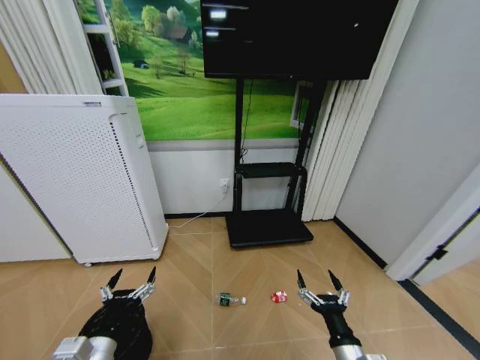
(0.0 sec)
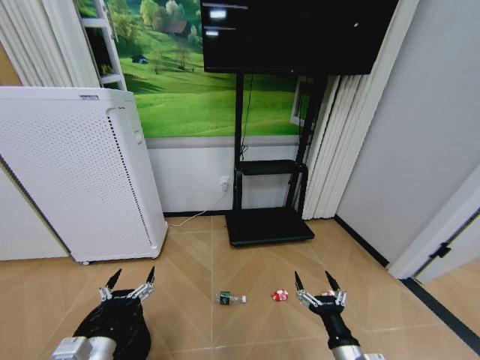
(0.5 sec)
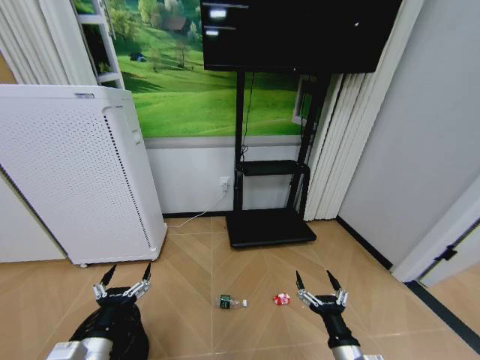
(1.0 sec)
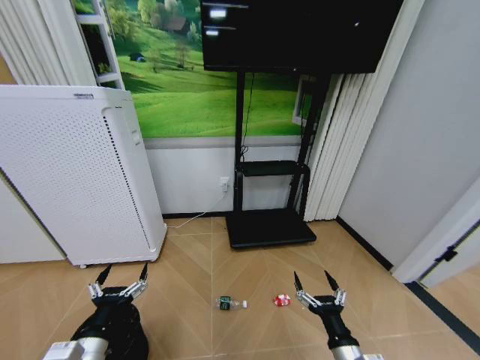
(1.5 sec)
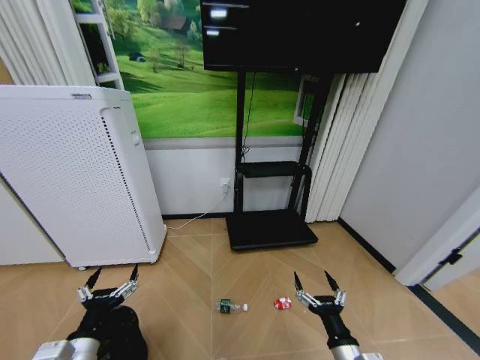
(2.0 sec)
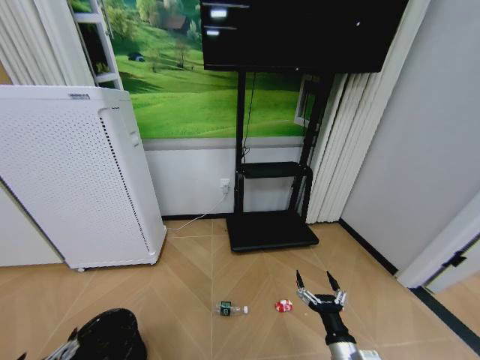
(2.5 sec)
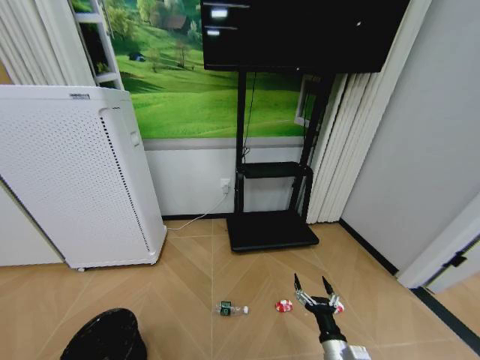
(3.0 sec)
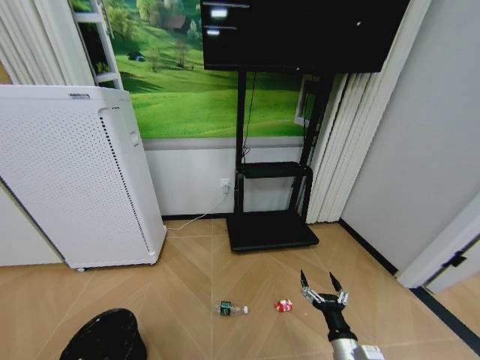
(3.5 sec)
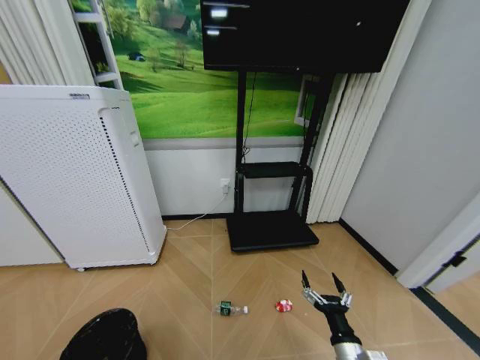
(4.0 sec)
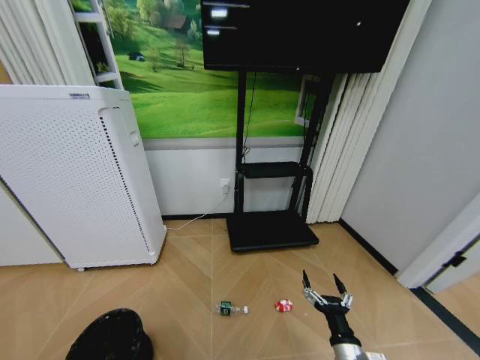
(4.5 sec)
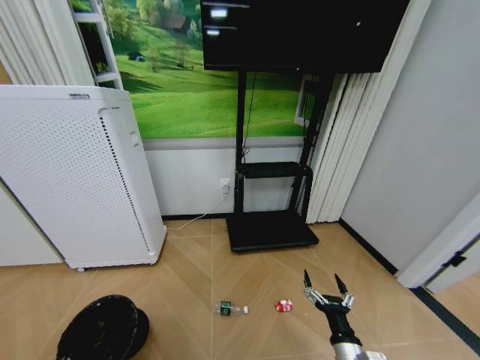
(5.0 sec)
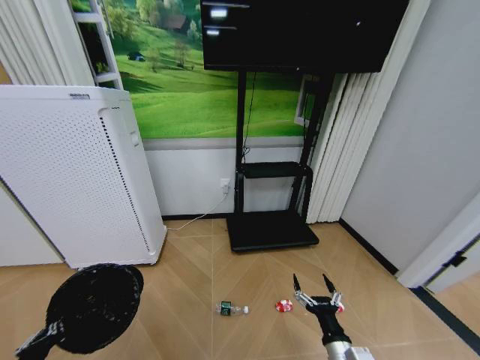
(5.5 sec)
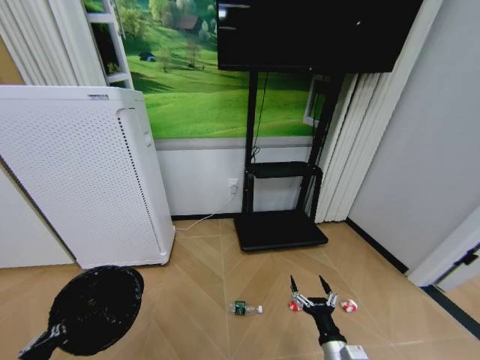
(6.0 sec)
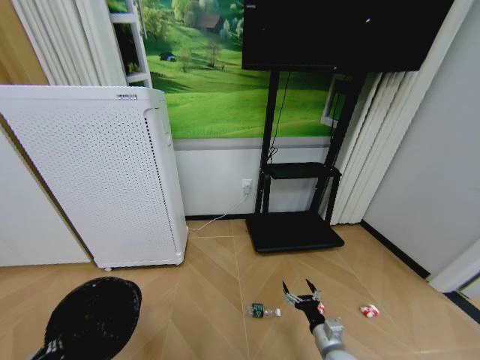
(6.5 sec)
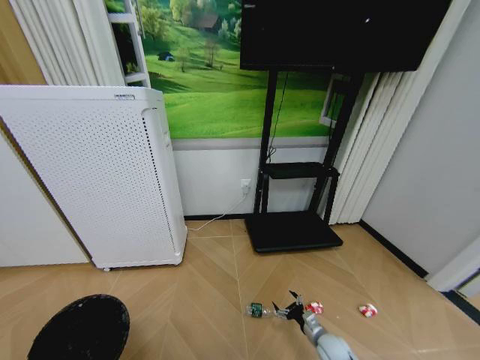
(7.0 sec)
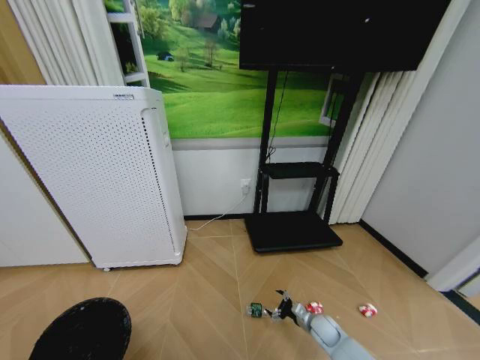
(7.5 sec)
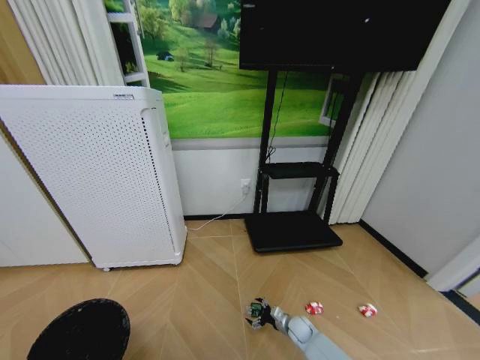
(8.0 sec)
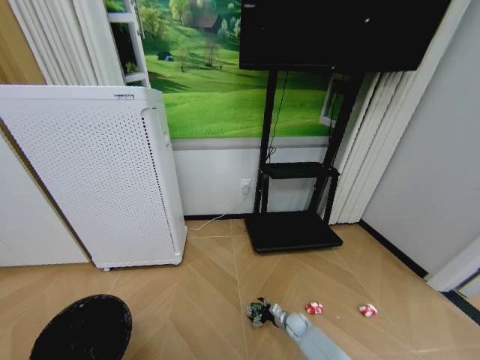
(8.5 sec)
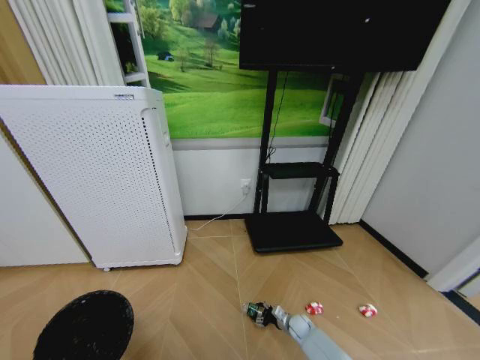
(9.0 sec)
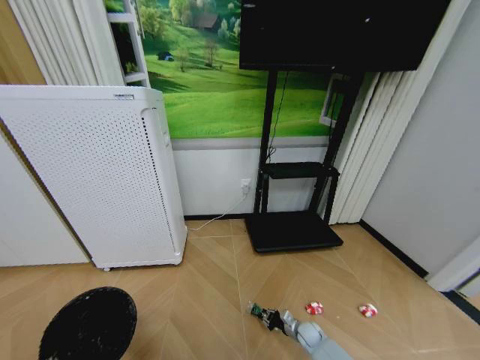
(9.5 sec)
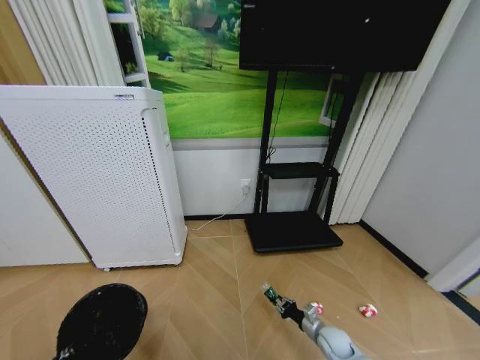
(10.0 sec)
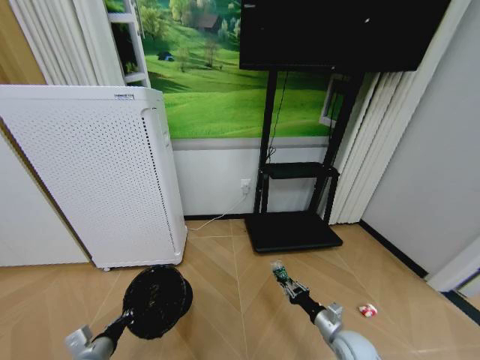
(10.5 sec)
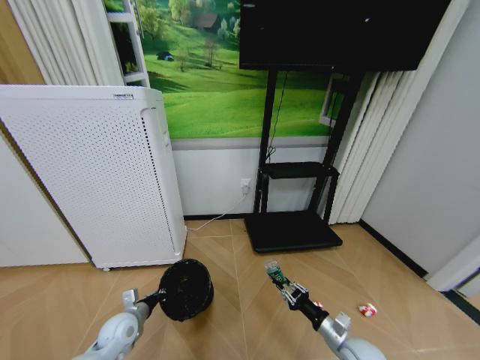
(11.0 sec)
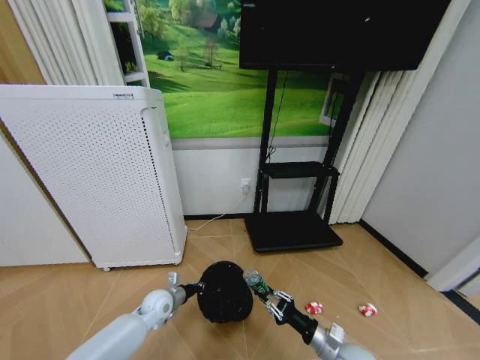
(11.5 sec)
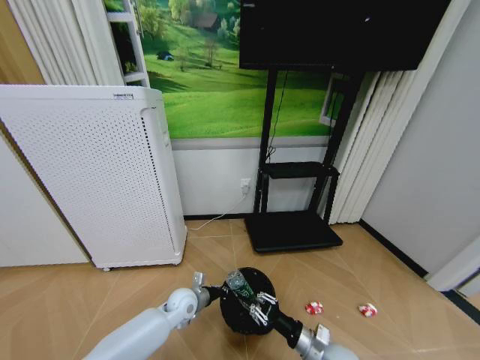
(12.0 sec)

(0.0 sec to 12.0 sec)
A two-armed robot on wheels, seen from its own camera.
Task of the whole recording: Pick up the trash bin and place the garbage on the floor into it.
0.0 sec - 2.0 sec: The grippers move only a little.
2.0 sec - 4.0 sec: The left gripper shifts roughly 20 cm to the left and downward.
4.0 sec - 6.0 sec: The left gripper shifts approximately 10 cm upward and to the right, and closes its fingers.
6.0 sec - 8.0 sec: The left gripper shifts some 5 cm backward, while the right gripper shifts some 30 cm downward and forward.
8.0 sec - 10.0 sec: The right gripper moves to the right, upward and backward, some 10 cm, and closes its fingers.
10.0 sec - 12.0 sec: The right gripper goes approximately 20 cm upward, to the left and backward. The left gripper is displaced forward and to the right by roughly 35 cm.

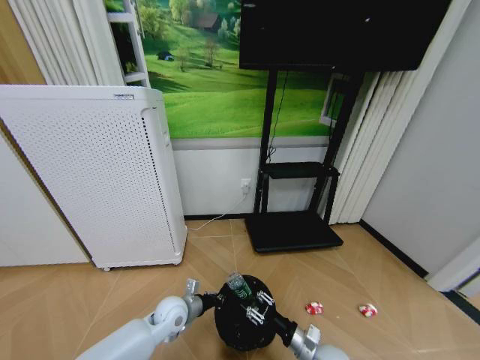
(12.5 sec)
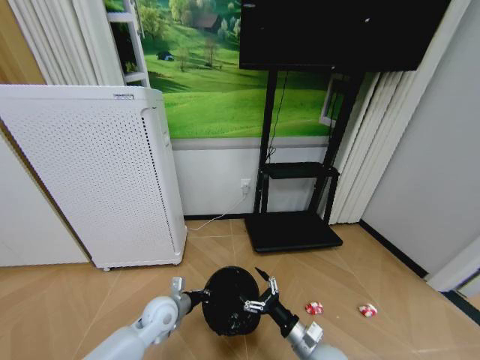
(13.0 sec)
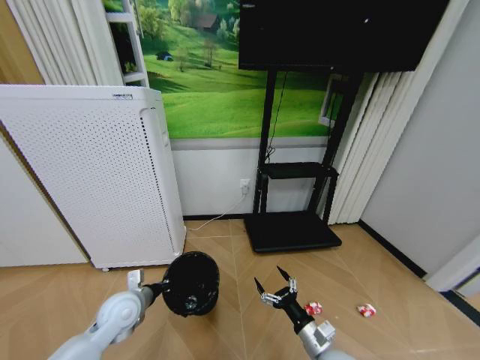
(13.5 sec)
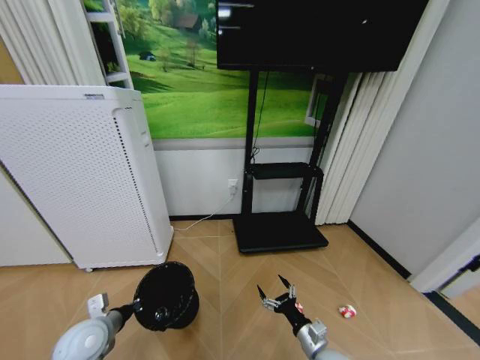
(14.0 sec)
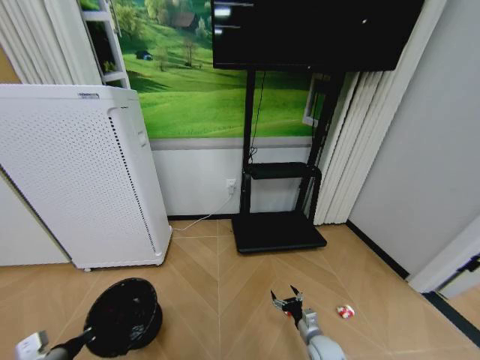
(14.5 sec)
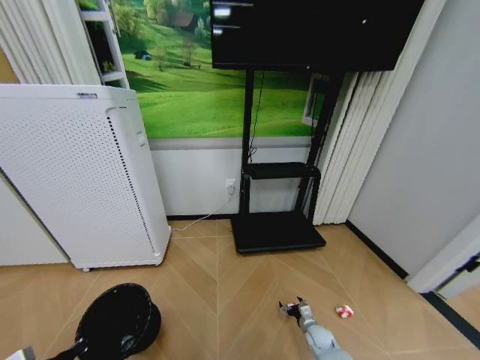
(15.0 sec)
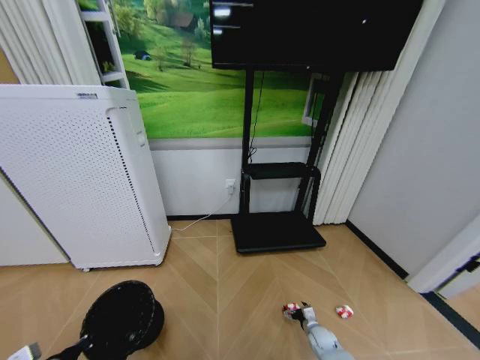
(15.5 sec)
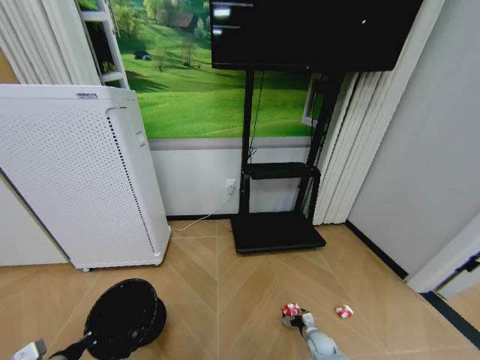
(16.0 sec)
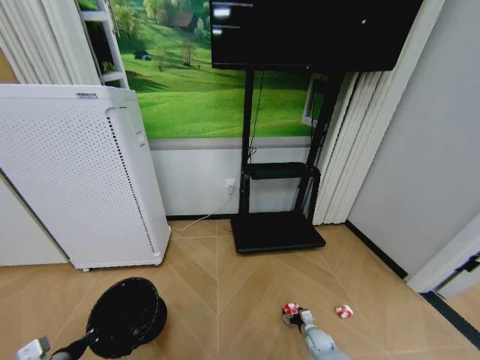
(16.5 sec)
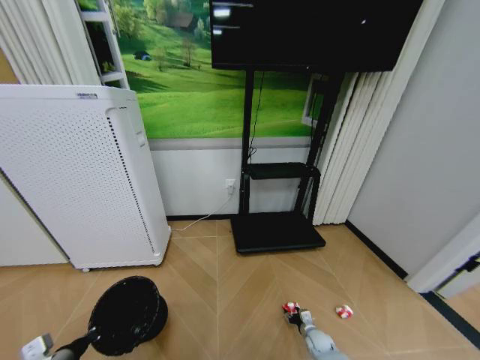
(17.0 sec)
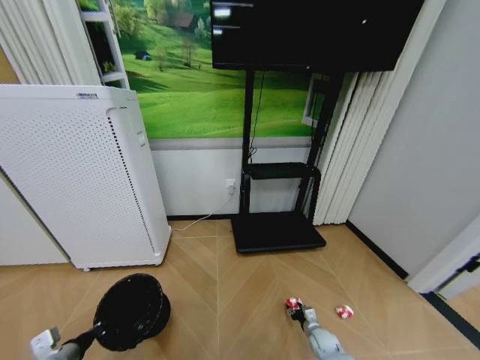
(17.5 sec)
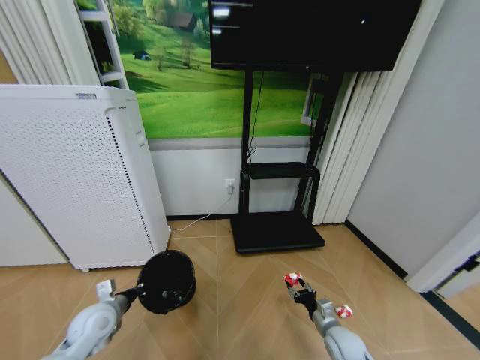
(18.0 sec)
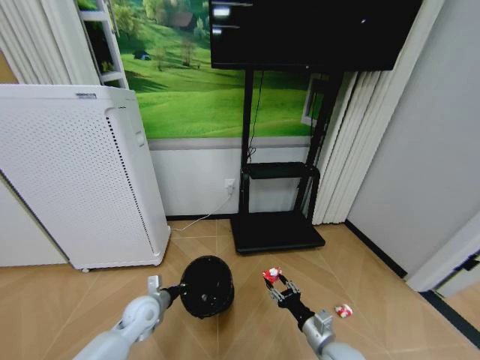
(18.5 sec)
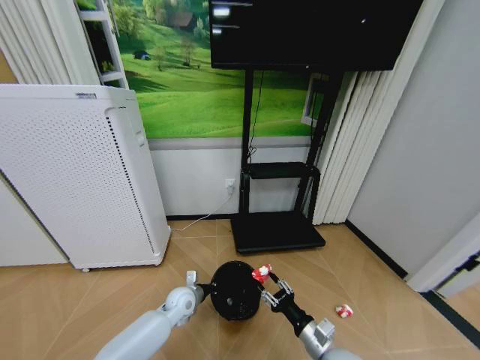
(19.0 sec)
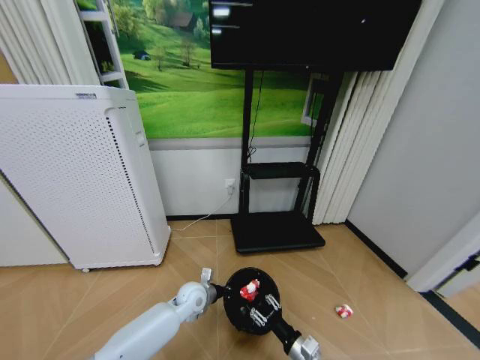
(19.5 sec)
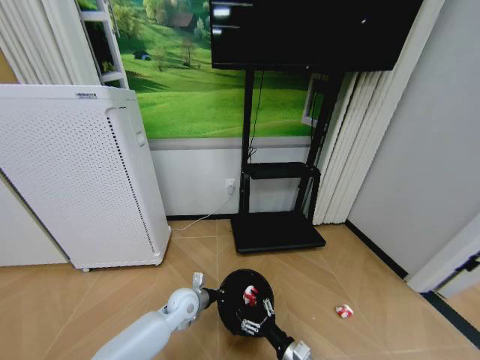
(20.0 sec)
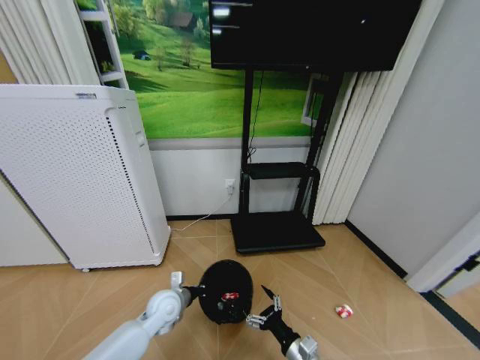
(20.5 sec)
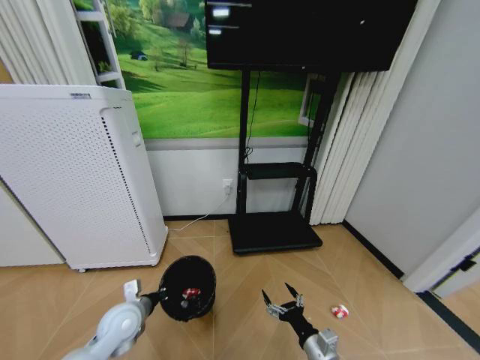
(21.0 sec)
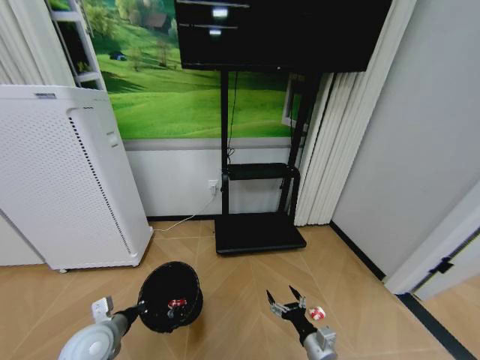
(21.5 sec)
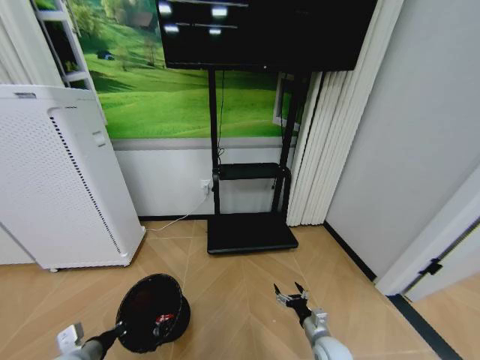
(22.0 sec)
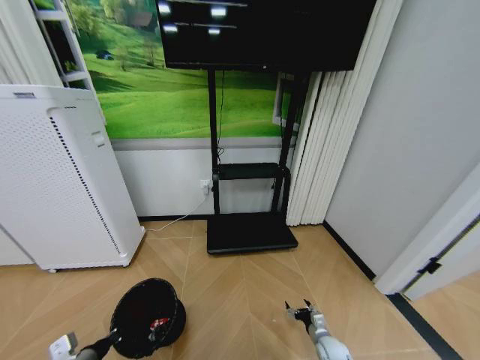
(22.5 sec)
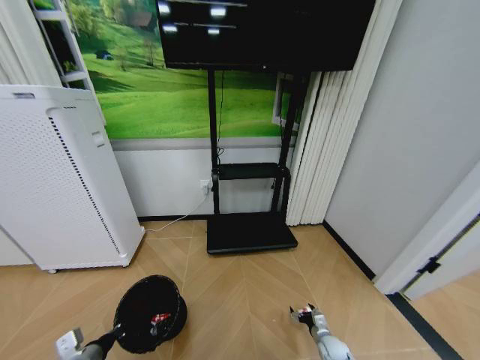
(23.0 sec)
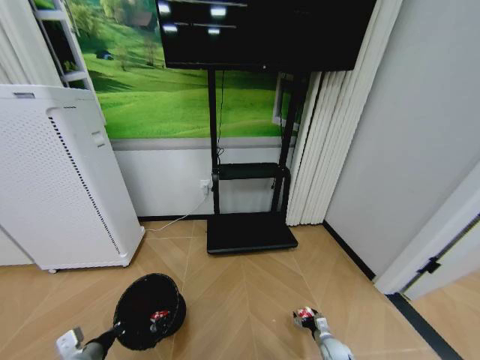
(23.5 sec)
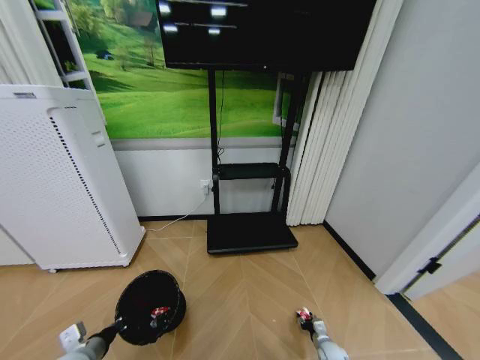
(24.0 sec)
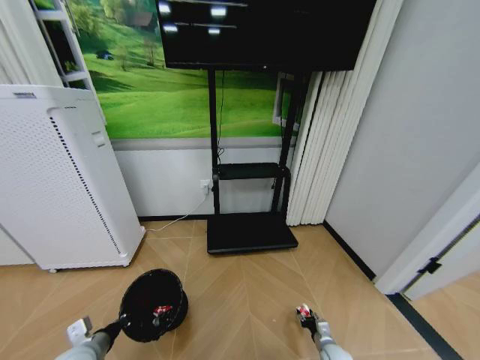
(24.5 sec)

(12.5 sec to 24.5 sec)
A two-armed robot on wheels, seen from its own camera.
Task of the whole recording: Pick up the trash bin and place the garbage on the floor into it.
12.5 sec - 14.5 sec: The left gripper goes roughly 25 cm to the left and backward. Meanwhile the right gripper heads downward, covering approximately 5 cm, and opens its fingers.
14.5 sec - 16.5 sec: The right gripper goes approximately 20 cm downward, forward and to the right; the left gripper moves approximately 5 cm.
16.5 sec - 18.5 sec: The right gripper goes some 25 cm upward, and closes. Meanwhile the left gripper is displaced forward and to the right by approximately 20 cm.
18.5 sec - 20.5 sec: The right gripper heads to the left, covering approximately 5 cm, and opens its fingers. Meanwhile the left gripper is displaced to the right by some 10 cm.
20.5 sec - 22.5 sec: The left gripper is displaced to the left and backward by roughly 25 cm, while the right gripper goes about 25 cm downward, to the right and forward.
22.5 sec - 24.5 sec: The right gripper closes its fingers.

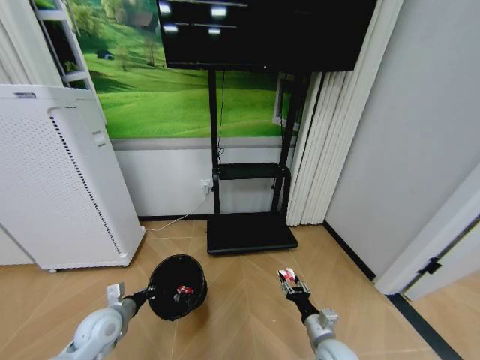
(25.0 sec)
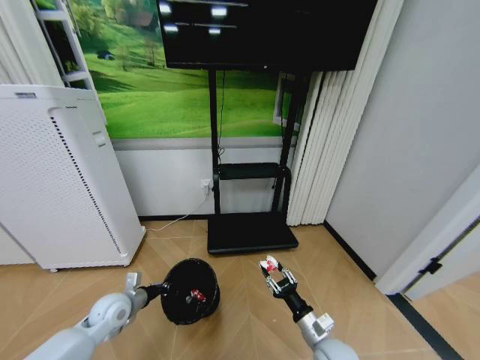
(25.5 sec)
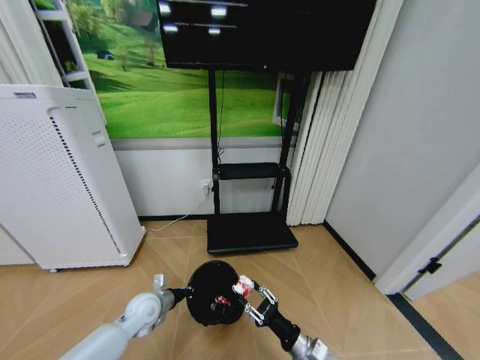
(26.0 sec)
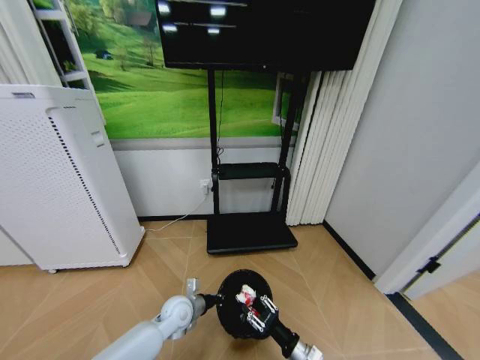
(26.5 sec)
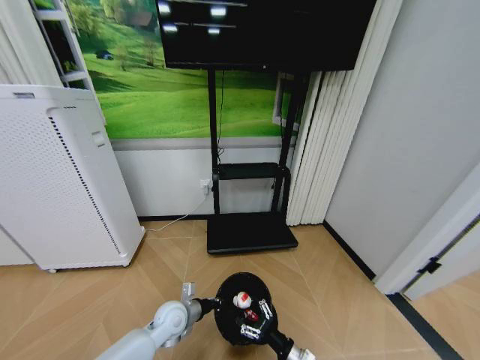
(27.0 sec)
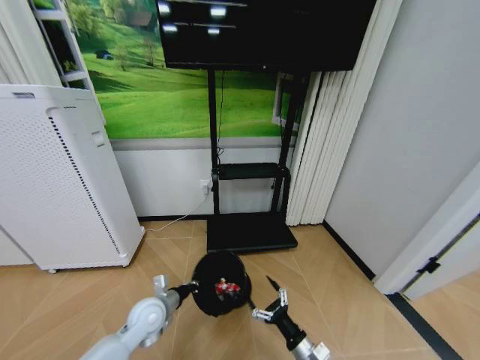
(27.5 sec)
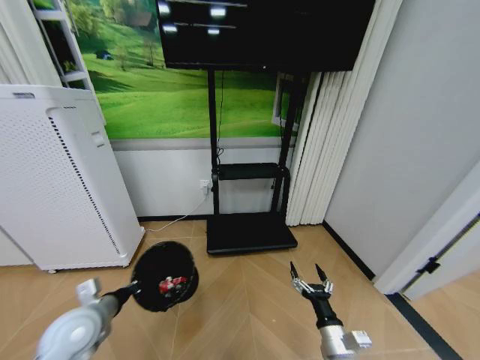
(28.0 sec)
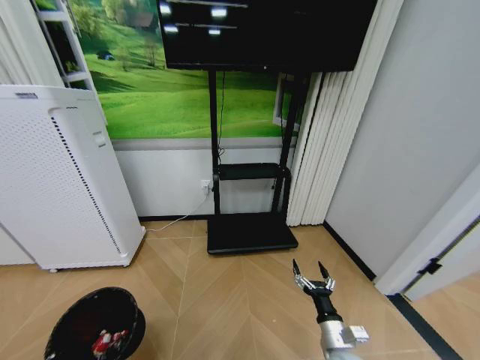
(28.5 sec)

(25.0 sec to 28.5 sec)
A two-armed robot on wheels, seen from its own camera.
Task of the whole recording: Pick up the trash bin and place the garbage on the floor into it.
25.0 sec - 27.0 sec: The right gripper changes place by about 5 cm. The left gripper goes about 15 cm to the right.
27.0 sec - 28.5 sec: The left gripper shifts approximately 35 cm to the left, backward and upward. The right gripper heads upward, covering some 5 cm, and opens its fingers.
